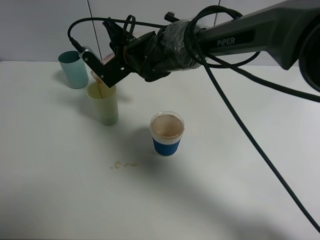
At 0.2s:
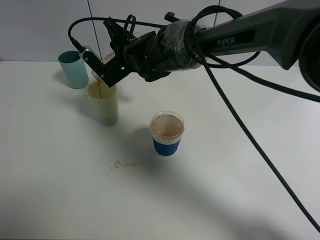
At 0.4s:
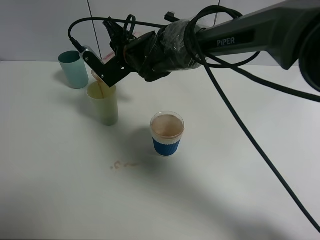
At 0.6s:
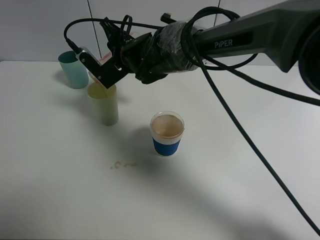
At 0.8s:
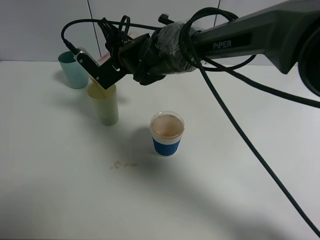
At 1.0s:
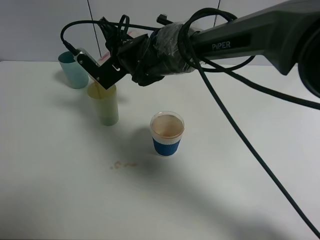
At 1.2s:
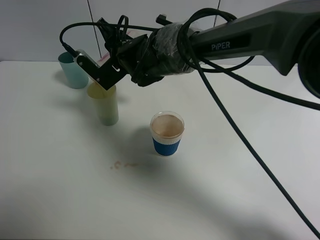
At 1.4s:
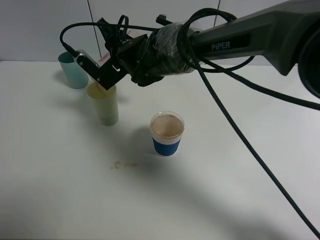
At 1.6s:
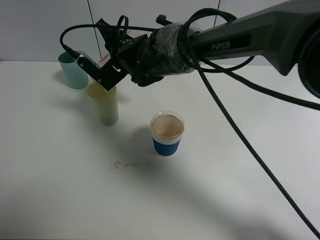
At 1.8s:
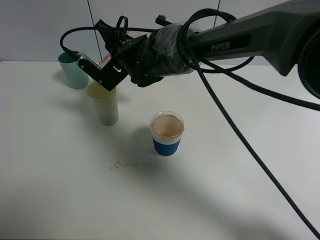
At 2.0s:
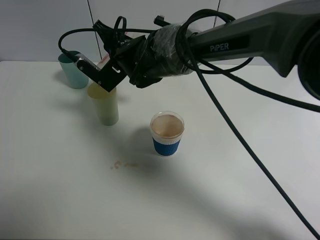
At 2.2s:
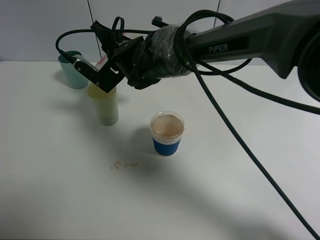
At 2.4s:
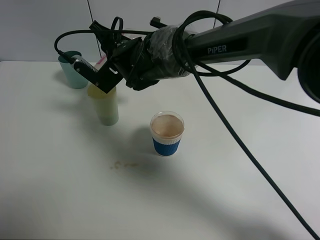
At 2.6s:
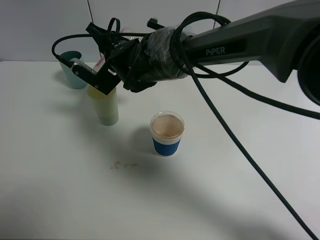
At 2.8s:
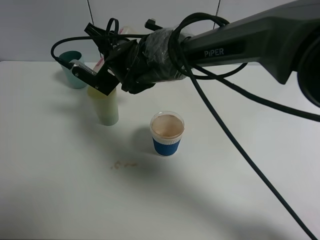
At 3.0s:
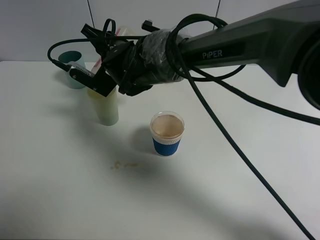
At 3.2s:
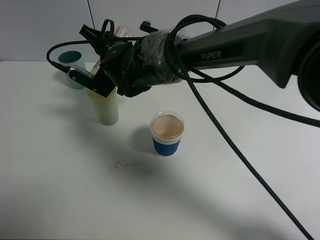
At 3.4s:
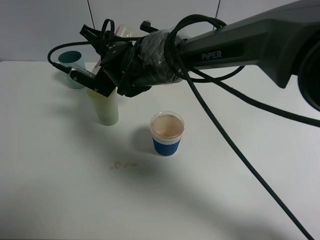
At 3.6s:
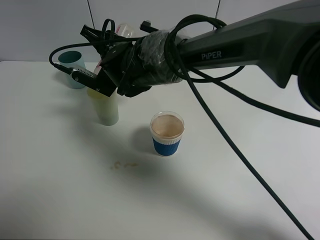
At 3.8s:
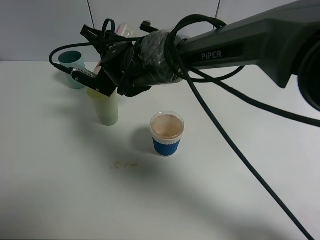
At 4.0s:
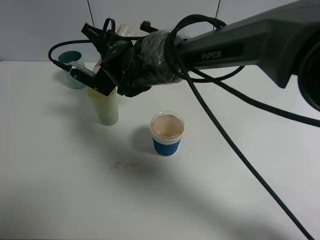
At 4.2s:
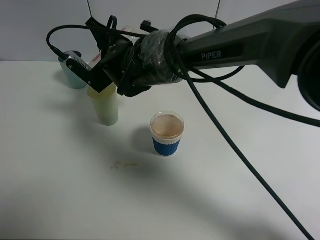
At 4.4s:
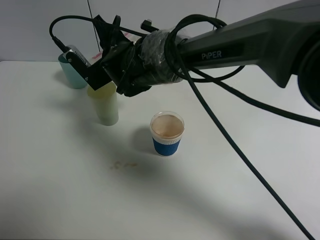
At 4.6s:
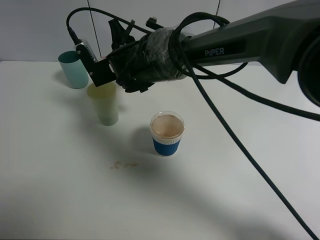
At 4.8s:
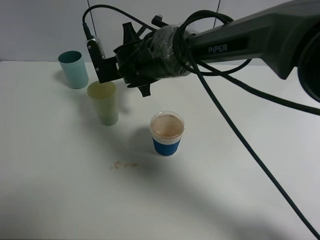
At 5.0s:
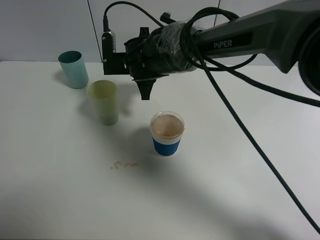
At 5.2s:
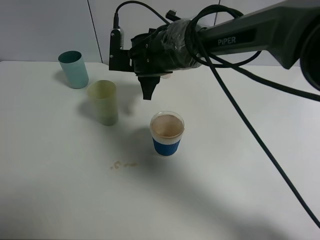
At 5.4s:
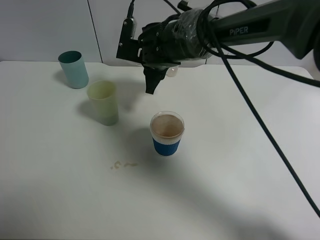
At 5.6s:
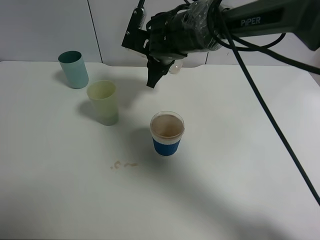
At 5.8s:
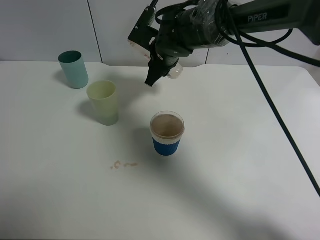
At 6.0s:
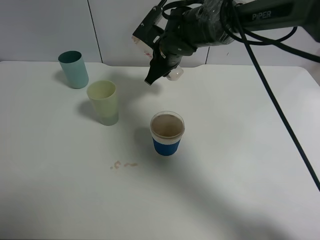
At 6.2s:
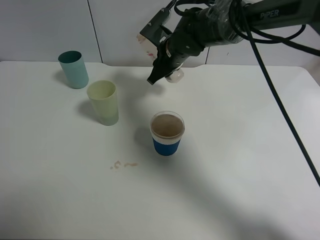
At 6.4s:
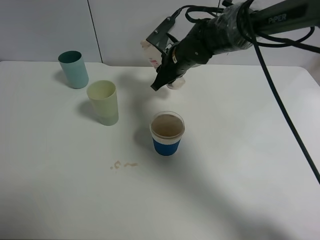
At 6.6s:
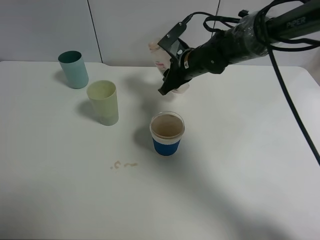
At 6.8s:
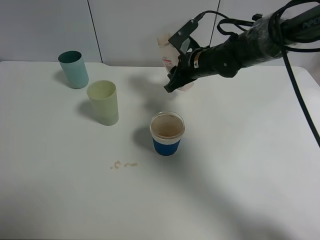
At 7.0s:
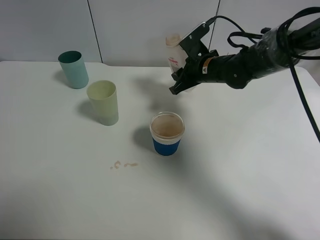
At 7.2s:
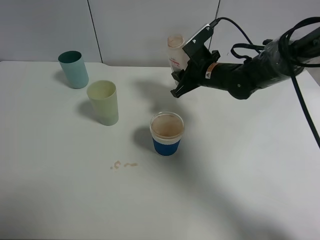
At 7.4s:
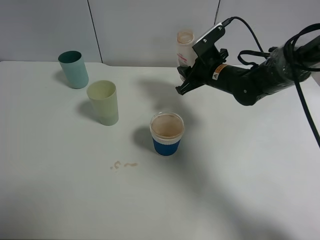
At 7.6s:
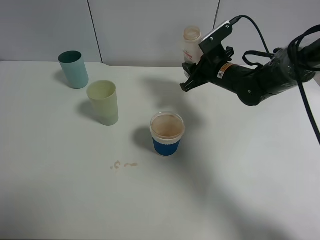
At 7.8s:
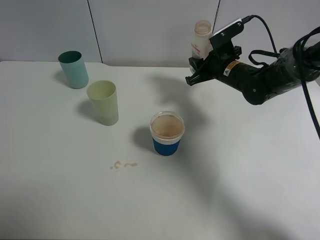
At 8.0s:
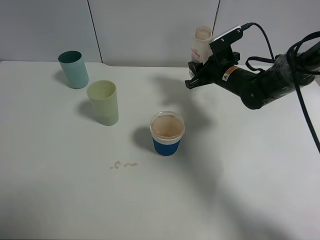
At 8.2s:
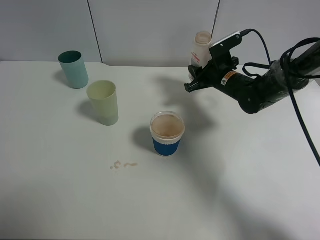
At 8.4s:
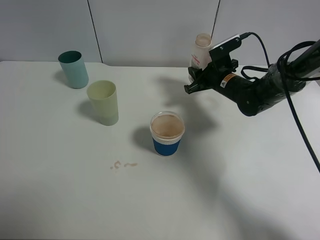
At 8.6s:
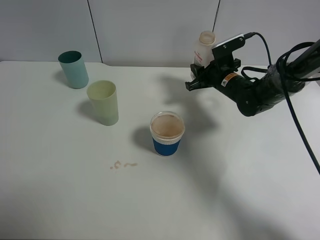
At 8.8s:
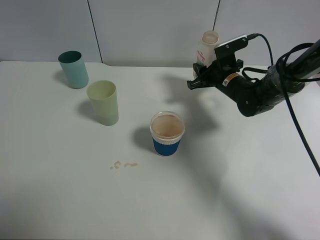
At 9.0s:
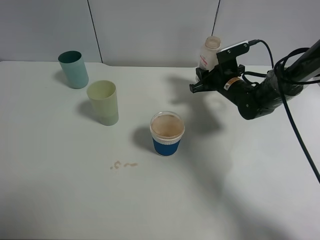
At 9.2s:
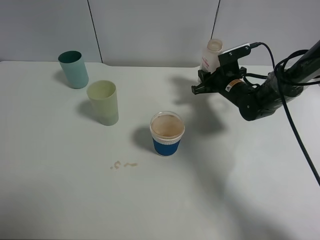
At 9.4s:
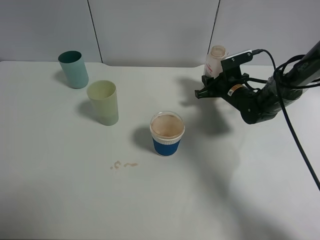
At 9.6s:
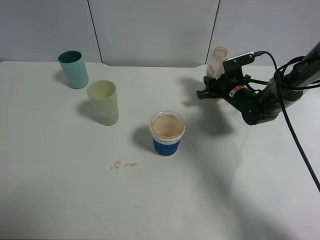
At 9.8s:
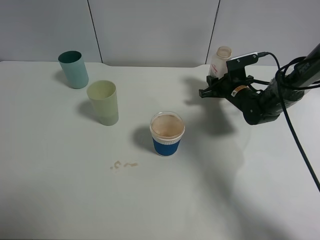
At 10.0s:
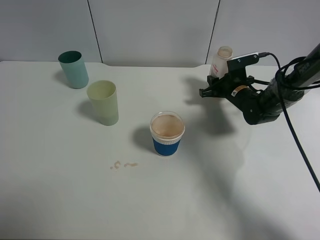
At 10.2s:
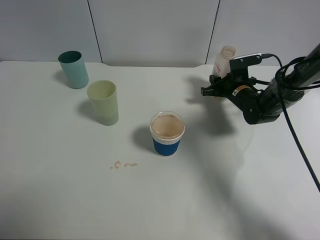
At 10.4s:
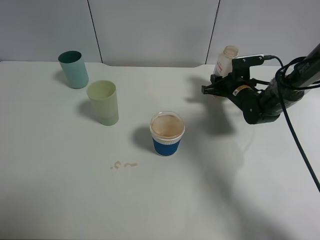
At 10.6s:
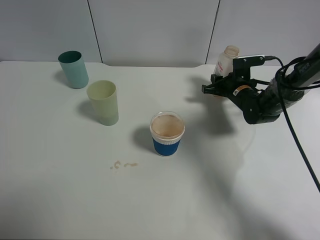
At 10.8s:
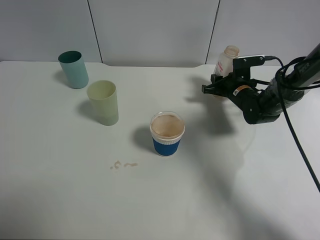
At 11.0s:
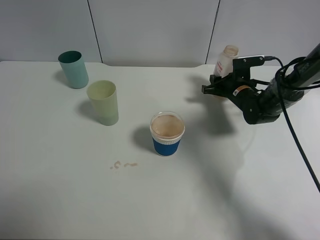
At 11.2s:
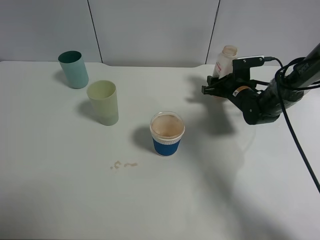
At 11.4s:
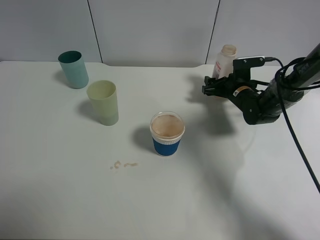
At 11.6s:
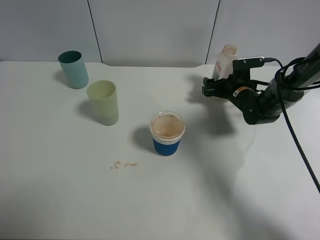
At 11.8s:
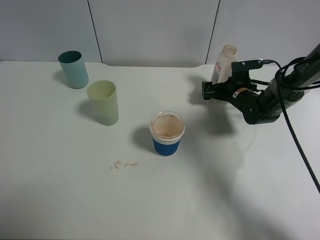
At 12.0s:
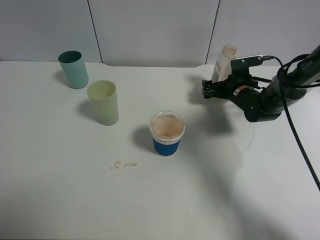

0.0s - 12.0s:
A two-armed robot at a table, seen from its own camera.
Task of the whole recording: use a clamp to hold the bottle of the drink, pour the beverage into a random cup, then clamp the cup containing the drink and pour the drink into another random cup.
Step, 0.0s - 4.6s: Pour the drink into the green plastic cup with right gripper.
Step, 4.8s - 11.2s: Place the drink bottle on the table with right gripper.
0.0s - 3.0s: The grippers make only small movements.
3.0s - 4.4s: The grippers stay close to where they were, moving slightly.
4.4s - 6.0s: The right gripper heads to the right and forward, covering about 10 cm.
6.0s - 7.6s: The right gripper heads to the right, covering about 15 cm.
7.6s - 9.0s: The right gripper moves about 5 cm.
9.0s - 10.4s: The grippers stay close to where they were, moving slightly.
10.4s - 12.0s: The right gripper opens up.

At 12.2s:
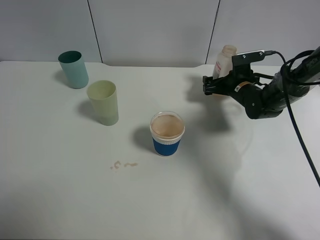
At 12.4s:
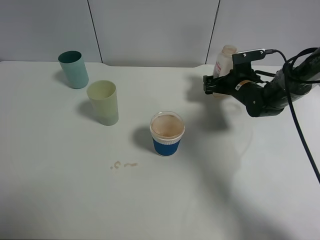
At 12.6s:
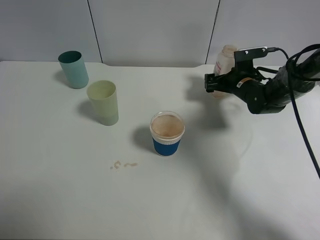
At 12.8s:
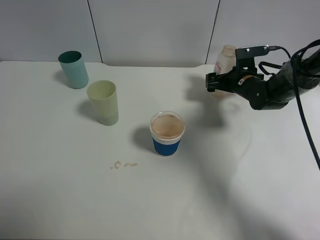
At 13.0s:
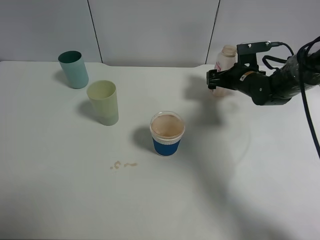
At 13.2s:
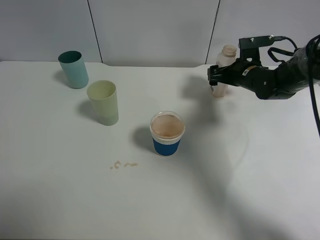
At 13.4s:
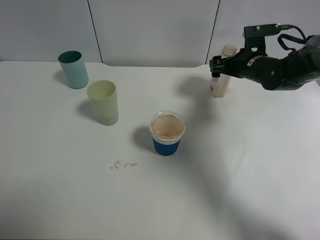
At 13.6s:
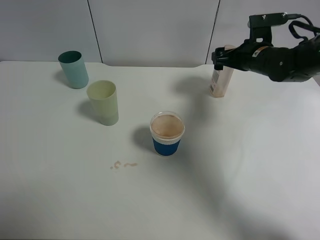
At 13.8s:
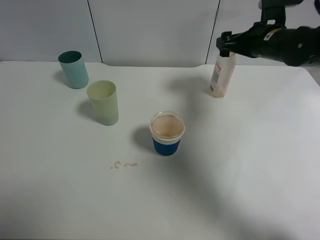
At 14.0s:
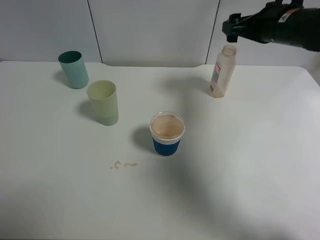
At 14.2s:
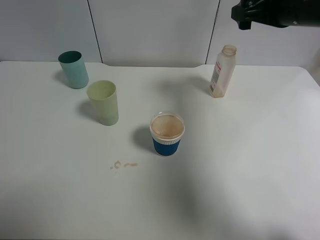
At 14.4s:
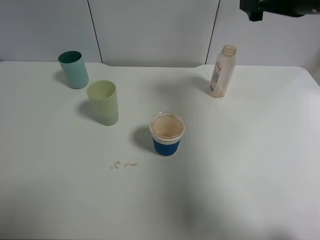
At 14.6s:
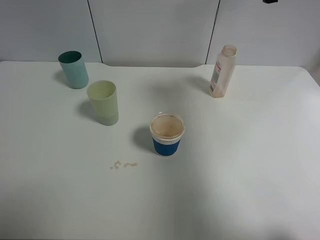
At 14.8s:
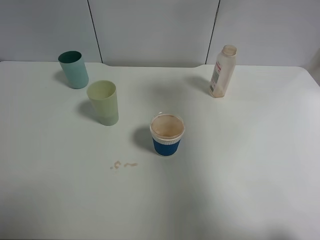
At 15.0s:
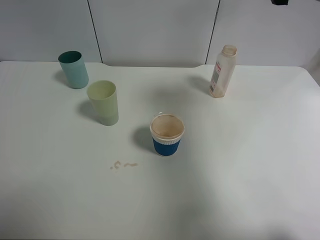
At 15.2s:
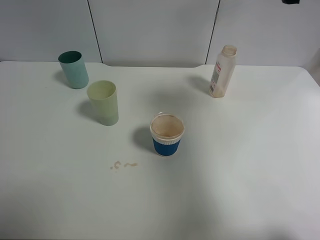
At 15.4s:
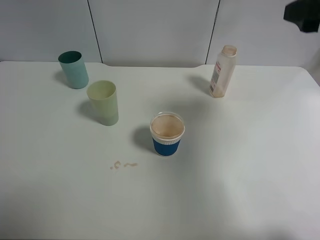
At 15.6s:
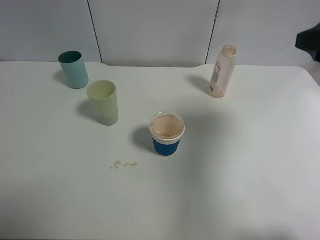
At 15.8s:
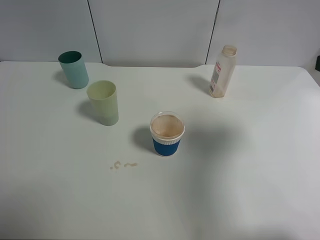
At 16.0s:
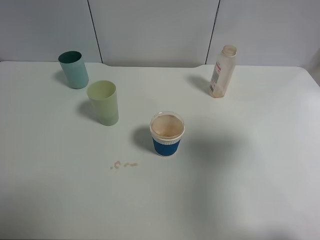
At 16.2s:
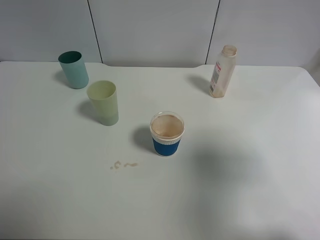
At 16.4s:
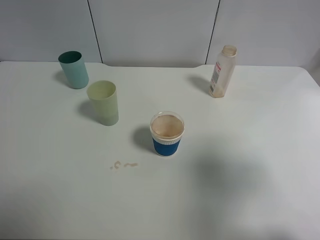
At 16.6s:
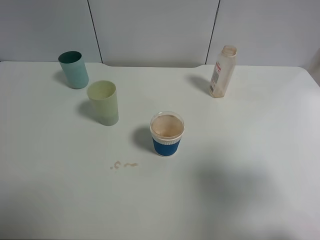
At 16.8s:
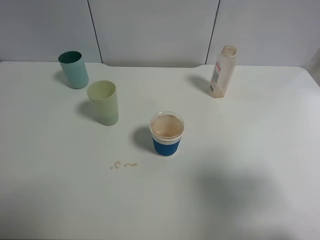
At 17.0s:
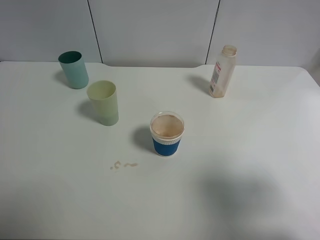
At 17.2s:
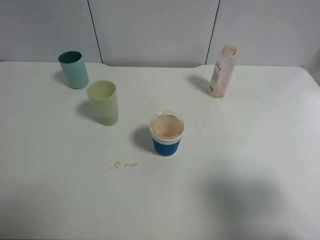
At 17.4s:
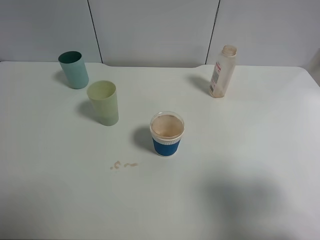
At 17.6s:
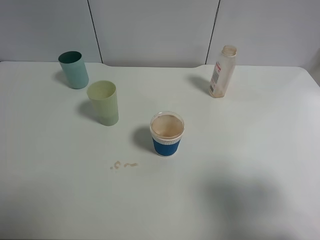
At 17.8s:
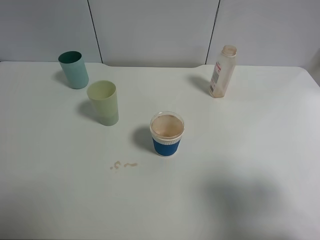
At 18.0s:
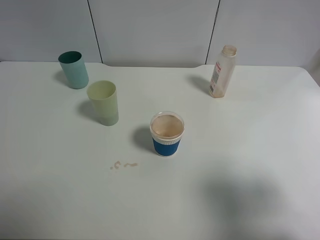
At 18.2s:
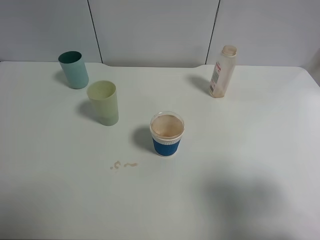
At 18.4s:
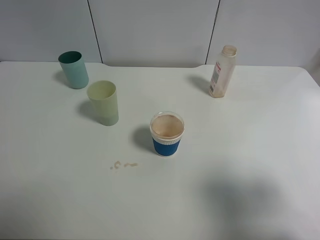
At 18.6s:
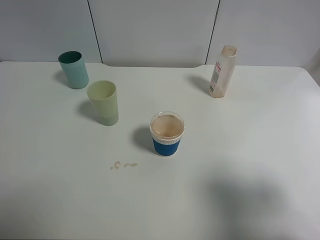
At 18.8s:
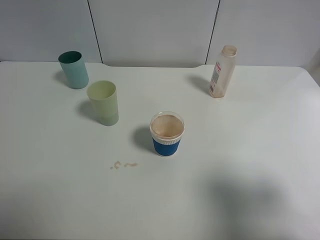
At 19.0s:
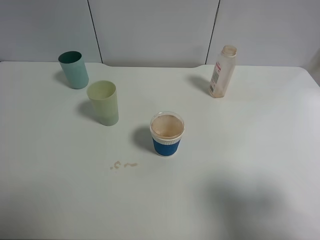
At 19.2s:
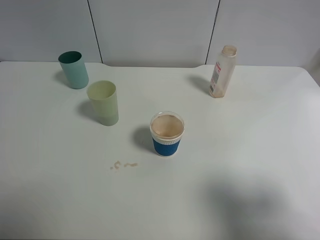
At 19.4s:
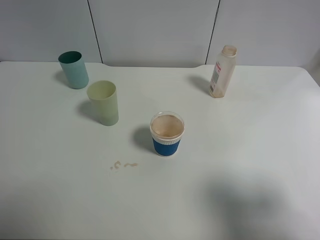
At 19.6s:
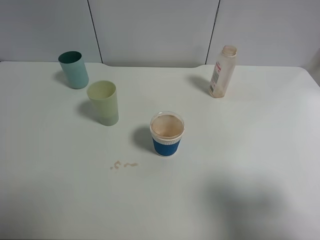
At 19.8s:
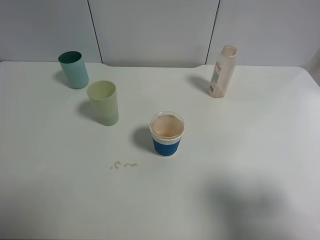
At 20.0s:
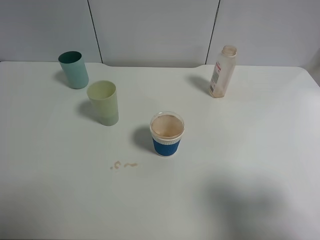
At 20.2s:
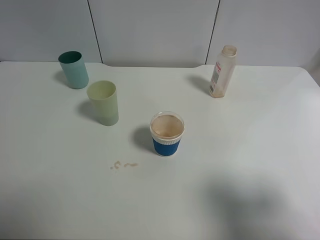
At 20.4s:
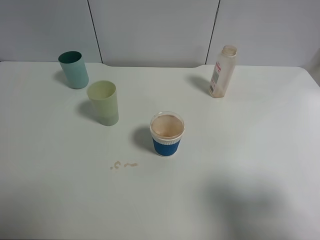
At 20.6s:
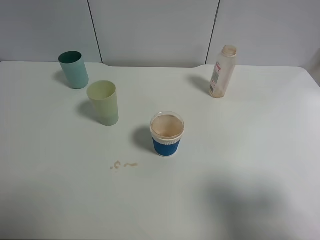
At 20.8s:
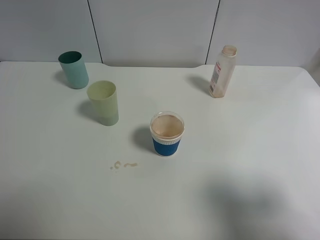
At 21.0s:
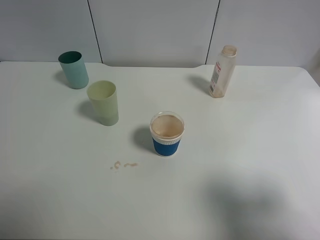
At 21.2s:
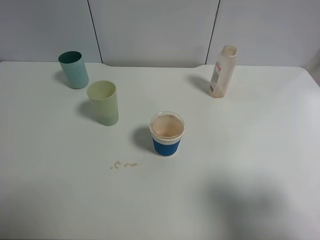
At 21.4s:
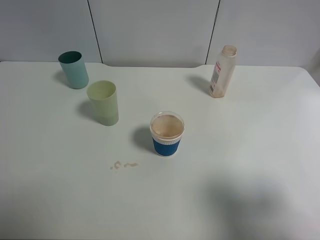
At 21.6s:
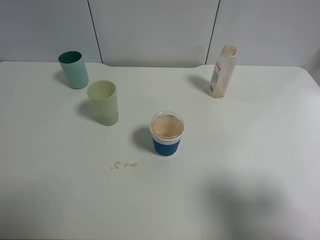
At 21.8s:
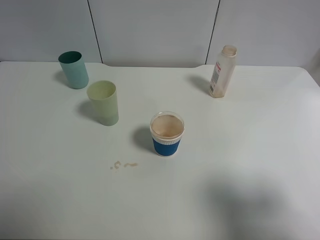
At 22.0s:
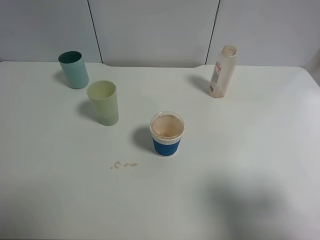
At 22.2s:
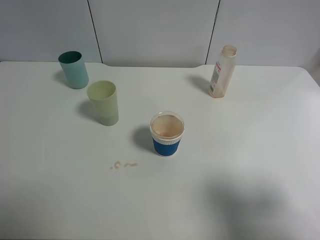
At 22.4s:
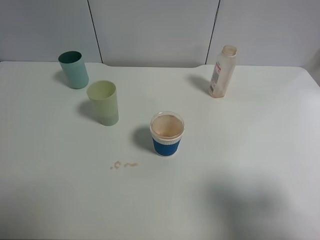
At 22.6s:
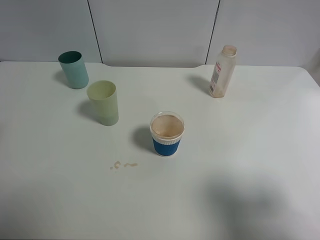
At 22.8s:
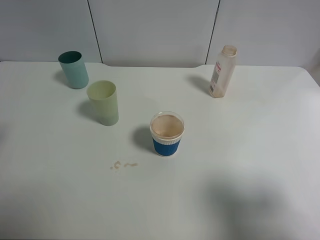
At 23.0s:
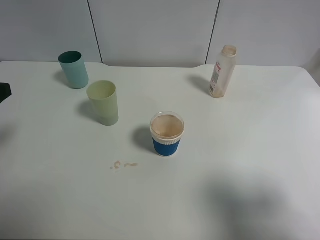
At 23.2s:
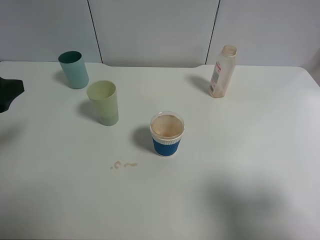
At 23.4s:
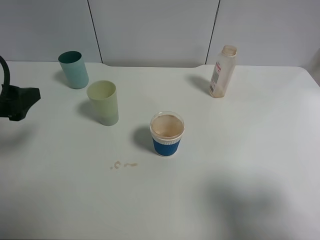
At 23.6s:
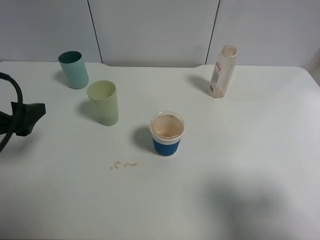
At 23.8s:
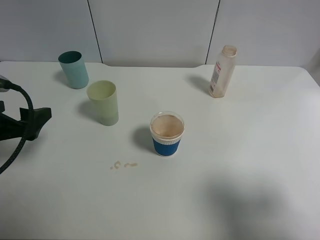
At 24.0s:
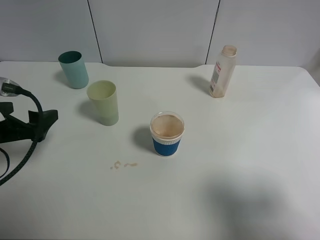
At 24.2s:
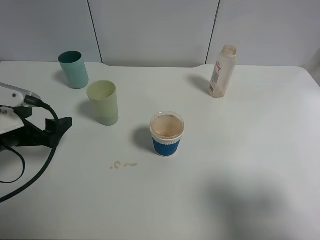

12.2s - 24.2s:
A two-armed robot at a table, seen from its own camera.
Task of the whole recording: use a clamp to hold the bottle of the drink, pour the beverage into a random cup, then clamp the cup containing the drink and pour the drink into another random cup.
12.2s - 13.8s: The right gripper is displaced upward by some 15 cm.
13.8s - 15.2s: The right gripper shifts approximately 20 cm upward and backward.
15.2s - 16.6s: The right gripper travels backward by about 20 cm.
16.6s - 18.2s: The grippers stay close to where they were, moving slightly.
19.8s - 21.2s: Both grippers stay about where they are.
22.6s - 24.2s: The left gripper travels downward and forward by approximately 15 cm.
